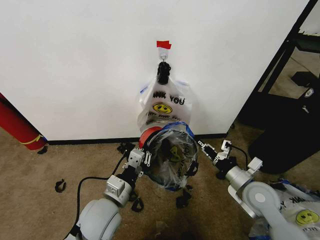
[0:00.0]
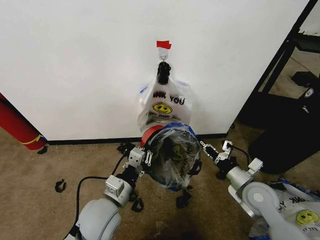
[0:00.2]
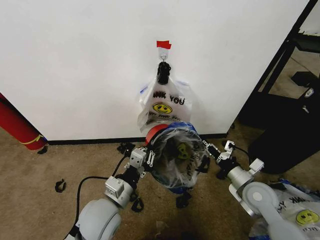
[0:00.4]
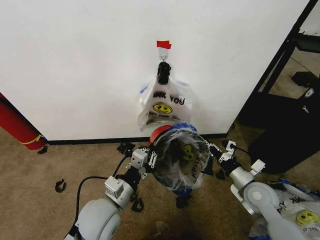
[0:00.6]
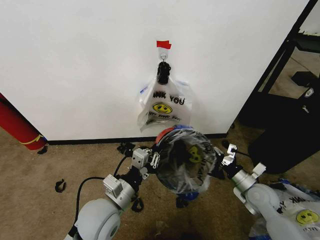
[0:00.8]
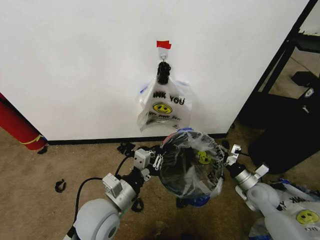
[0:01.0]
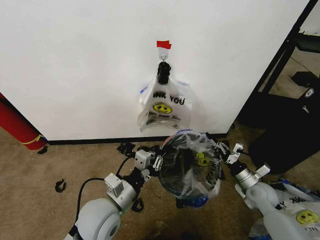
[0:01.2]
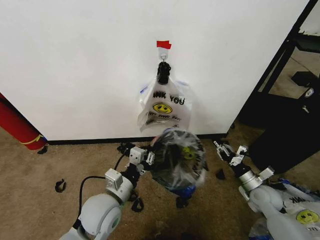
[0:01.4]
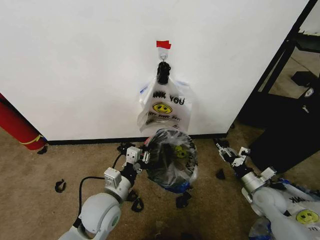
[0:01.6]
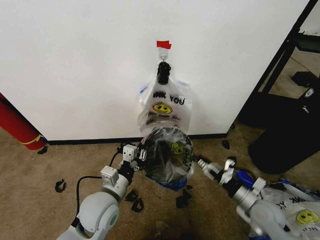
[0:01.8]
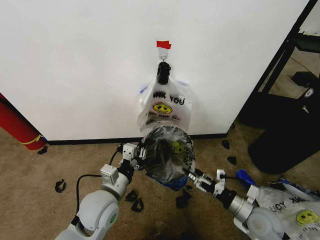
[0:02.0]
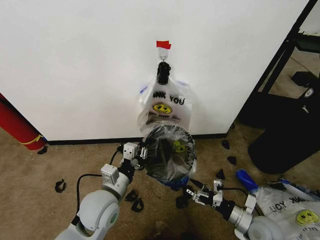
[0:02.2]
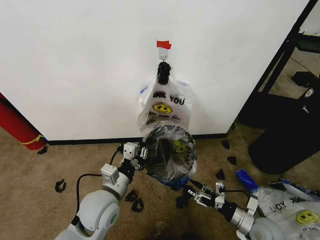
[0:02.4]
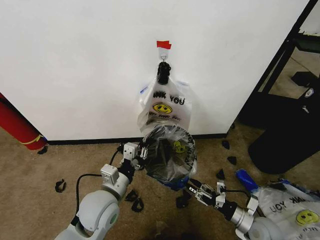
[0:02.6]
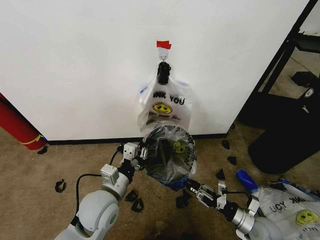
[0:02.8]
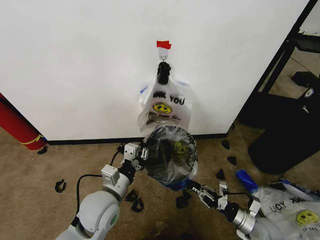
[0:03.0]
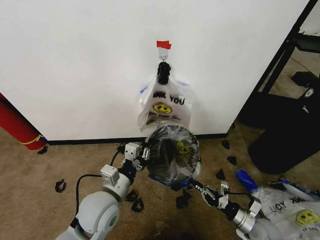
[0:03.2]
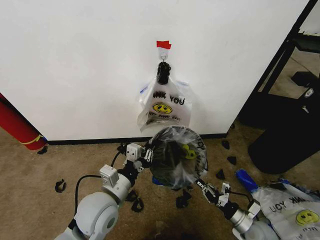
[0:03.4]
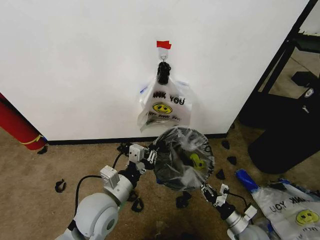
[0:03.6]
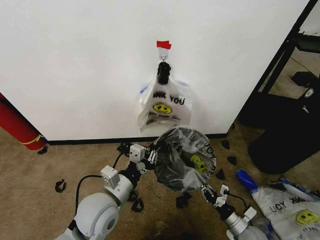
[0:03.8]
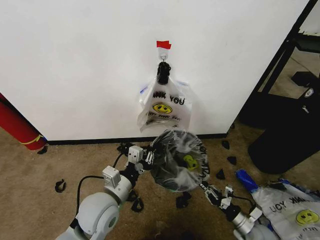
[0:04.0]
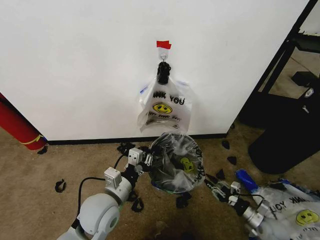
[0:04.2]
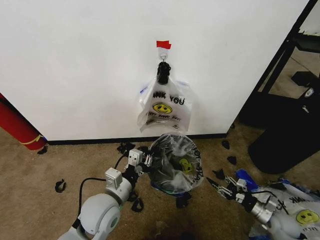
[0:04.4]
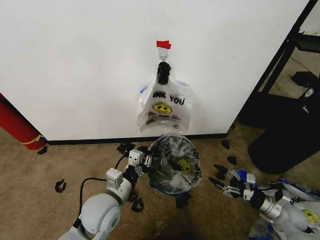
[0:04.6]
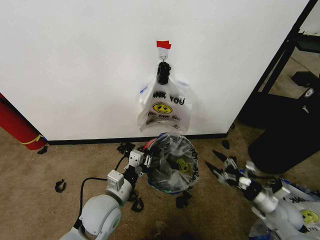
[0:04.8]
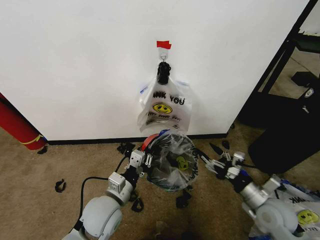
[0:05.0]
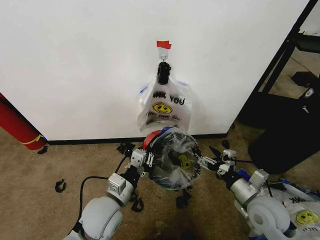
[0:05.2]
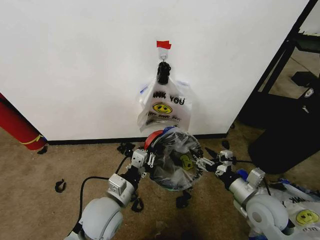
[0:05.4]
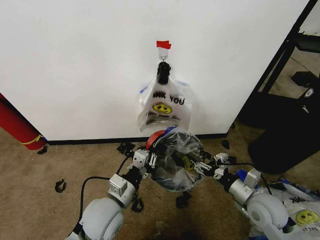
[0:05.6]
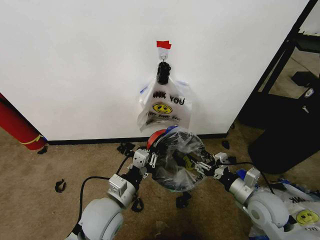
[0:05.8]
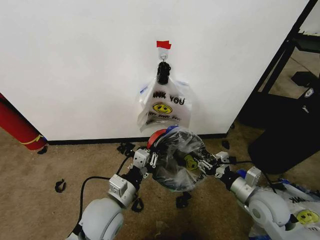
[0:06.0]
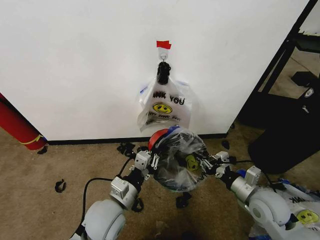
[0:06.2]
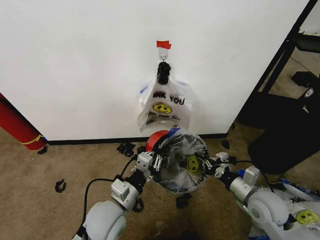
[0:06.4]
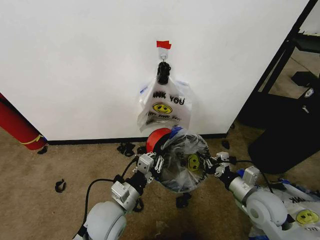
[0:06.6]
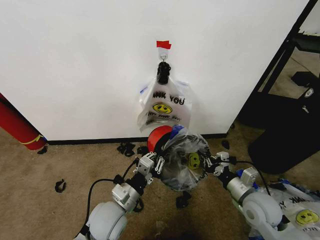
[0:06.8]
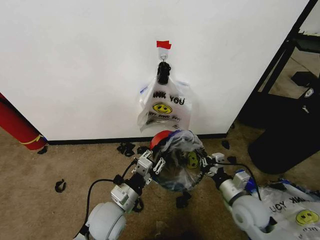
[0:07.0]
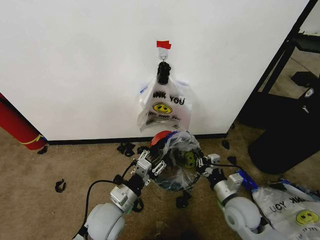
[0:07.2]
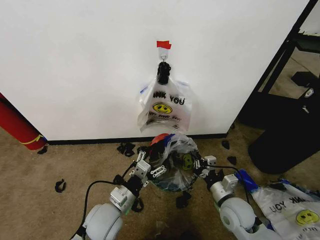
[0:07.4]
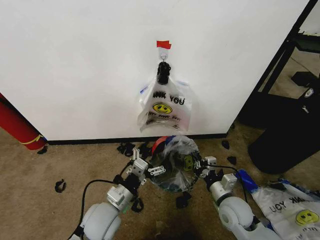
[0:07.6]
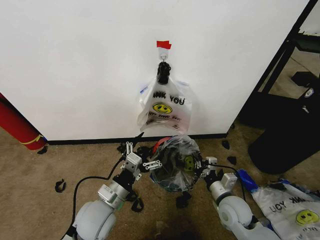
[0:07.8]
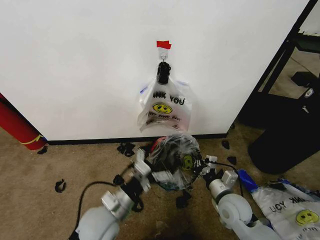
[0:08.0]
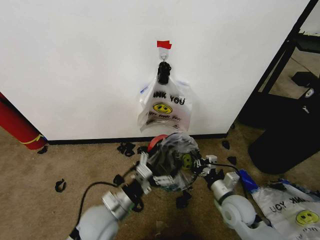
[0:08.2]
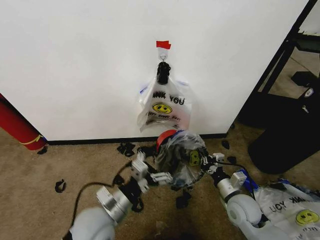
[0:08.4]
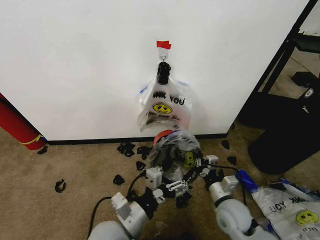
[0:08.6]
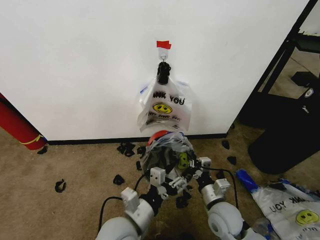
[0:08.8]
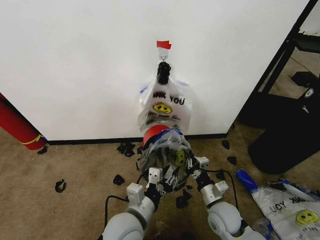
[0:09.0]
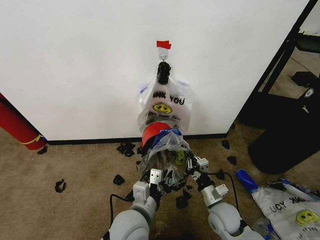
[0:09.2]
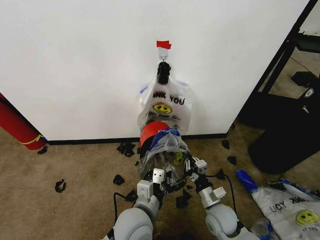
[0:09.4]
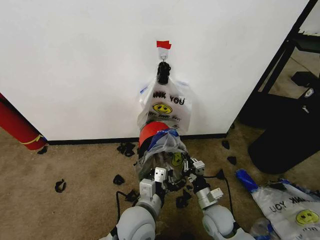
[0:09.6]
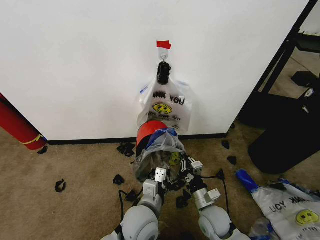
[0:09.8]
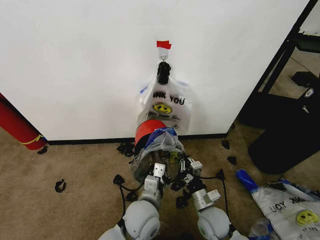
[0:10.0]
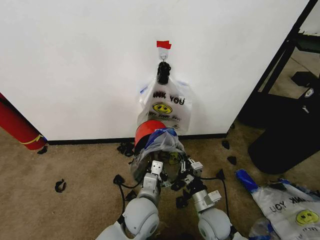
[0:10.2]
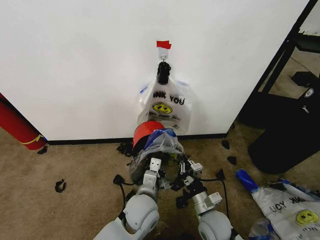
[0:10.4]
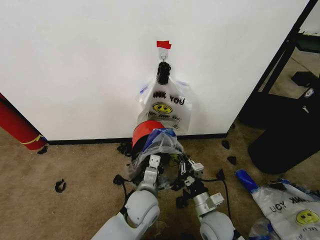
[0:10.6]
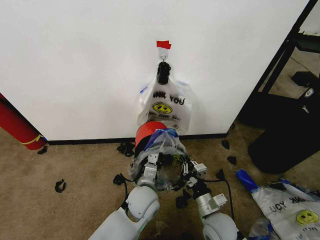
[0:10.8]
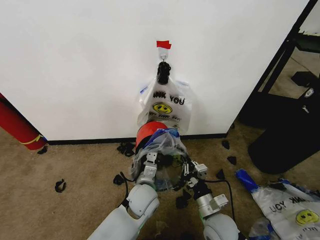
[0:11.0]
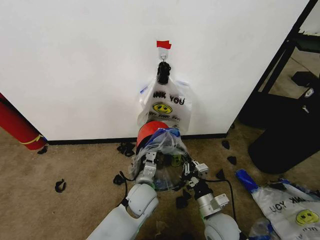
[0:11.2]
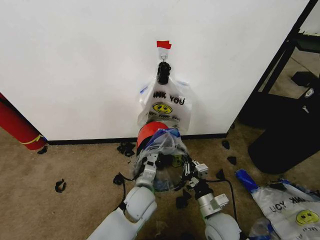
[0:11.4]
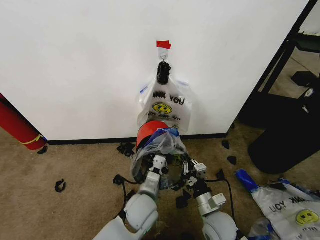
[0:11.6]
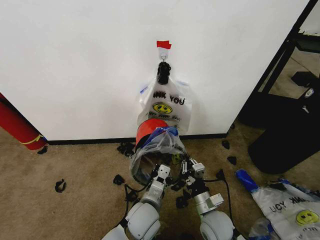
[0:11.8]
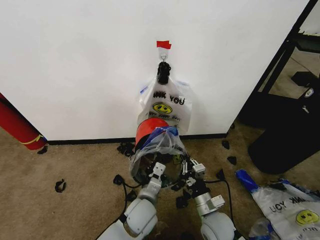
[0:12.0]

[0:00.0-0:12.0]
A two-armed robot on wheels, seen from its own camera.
Task of the whole recording: Pick up the garbage bag from the wall and place it over the trash bin.
0:00.0 to 0:01.6: The right gripper travels downward and to the right by some 15 cm, and opens.
0:01.6 to 0:03.0: The right gripper travels backward and downward by approximately 10 cm, and opens, then closes again.
0:03.0 to 0:04.4: The right gripper shifts some 10 cm to the right, and opens up.
0:04.4 to 0:06.0: The right gripper heads upward and to the left, covering approximately 20 cm, and opens and closes again.
0:06.0 to 0:07.6: The left gripper moves downward, roughly 5 cm, and opens up. The right gripper heads to the left and downward, covering some 10 cm, and closes.
0:07.6 to 0:09.0: The left gripper moves to the right, some 5 cm, and closes its fingers.
0:09.0 to 0:10.4: The left gripper travels forward by about 5 cm, and closes.
0:10.4 to 0:12.0: The grippers make only small movements.

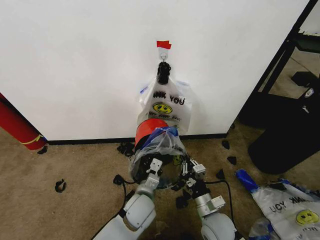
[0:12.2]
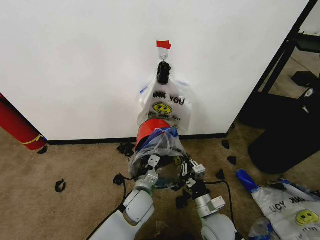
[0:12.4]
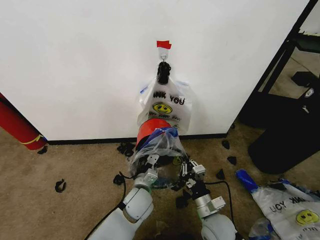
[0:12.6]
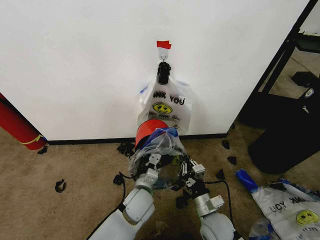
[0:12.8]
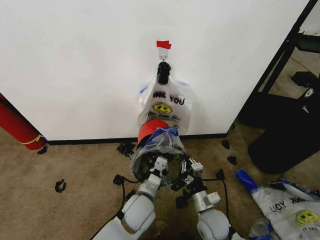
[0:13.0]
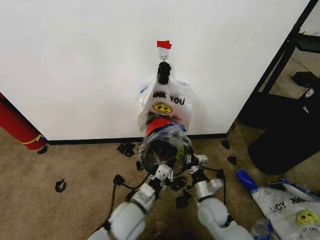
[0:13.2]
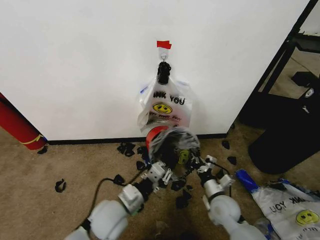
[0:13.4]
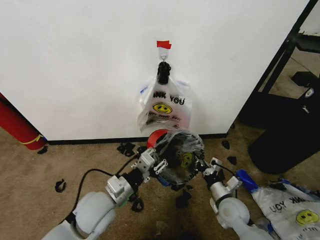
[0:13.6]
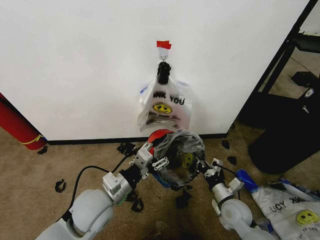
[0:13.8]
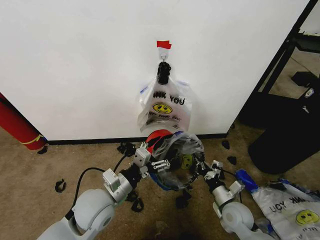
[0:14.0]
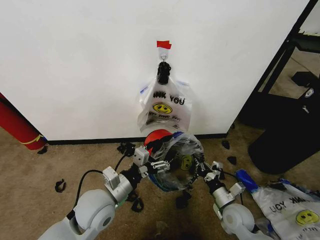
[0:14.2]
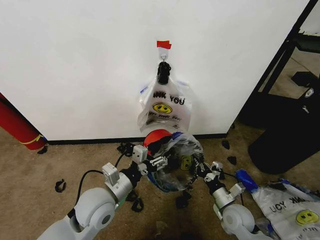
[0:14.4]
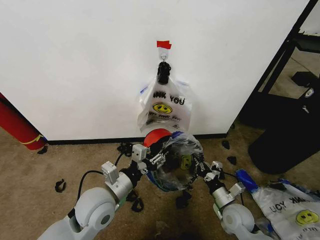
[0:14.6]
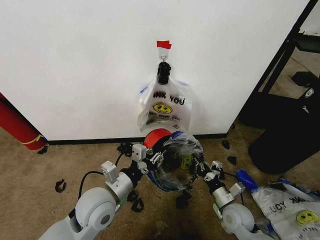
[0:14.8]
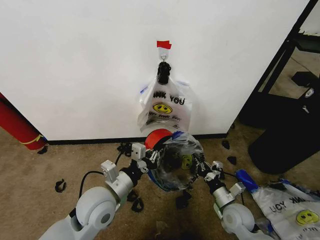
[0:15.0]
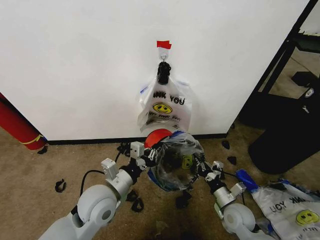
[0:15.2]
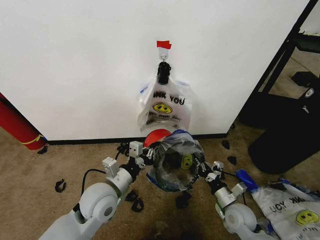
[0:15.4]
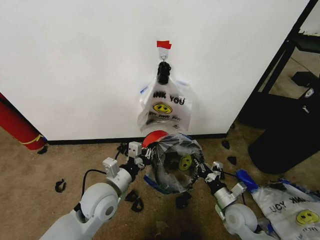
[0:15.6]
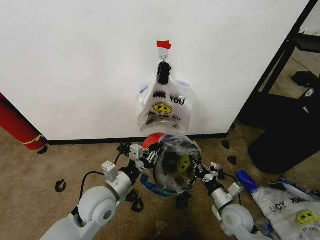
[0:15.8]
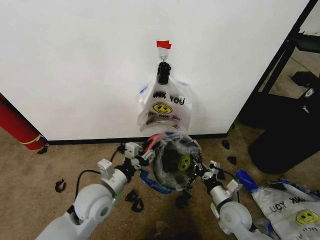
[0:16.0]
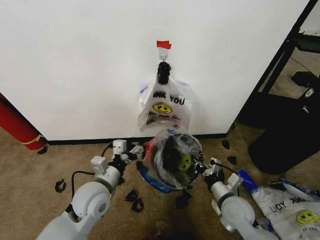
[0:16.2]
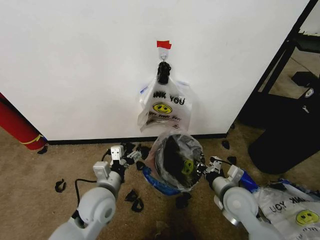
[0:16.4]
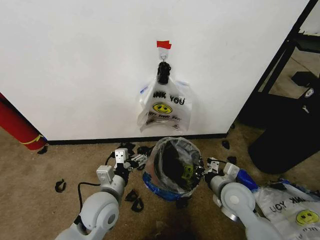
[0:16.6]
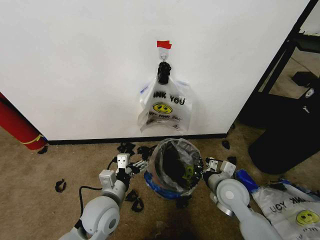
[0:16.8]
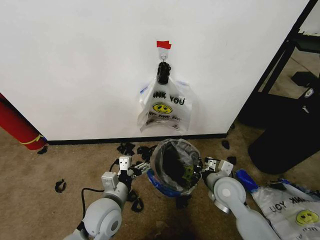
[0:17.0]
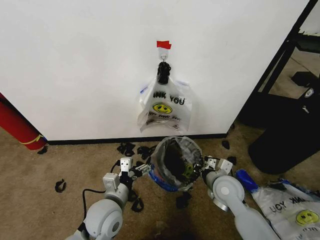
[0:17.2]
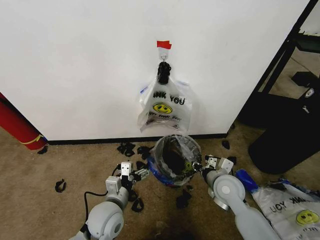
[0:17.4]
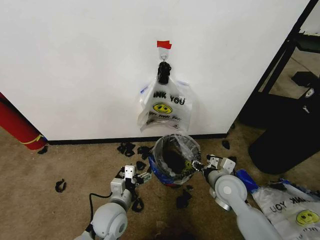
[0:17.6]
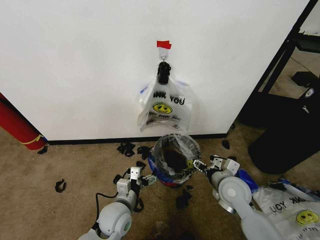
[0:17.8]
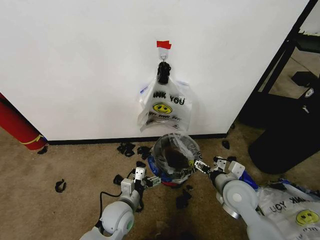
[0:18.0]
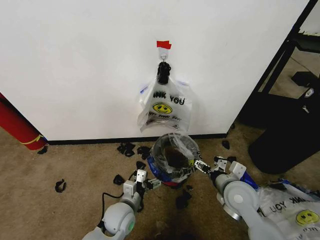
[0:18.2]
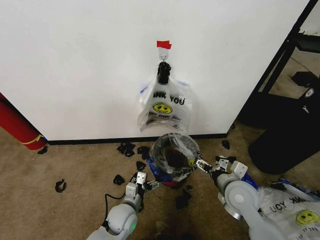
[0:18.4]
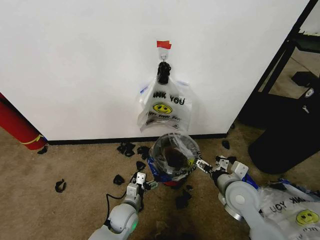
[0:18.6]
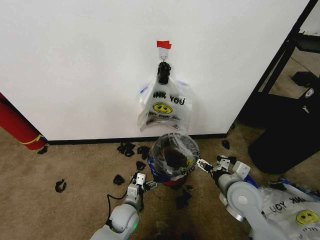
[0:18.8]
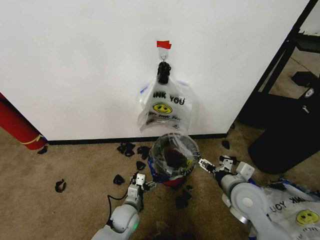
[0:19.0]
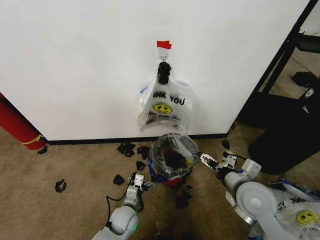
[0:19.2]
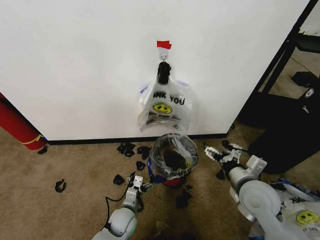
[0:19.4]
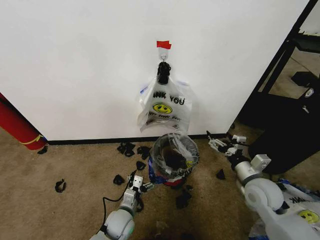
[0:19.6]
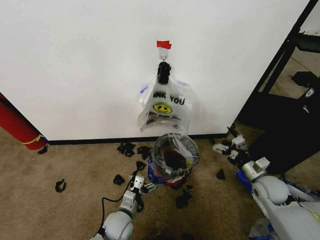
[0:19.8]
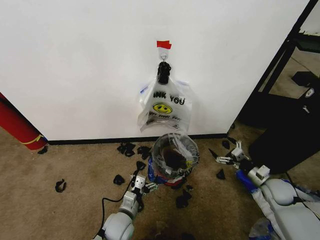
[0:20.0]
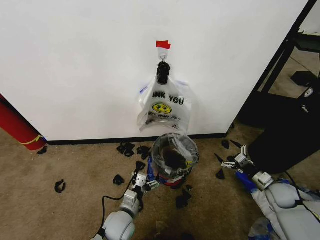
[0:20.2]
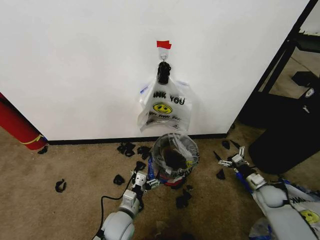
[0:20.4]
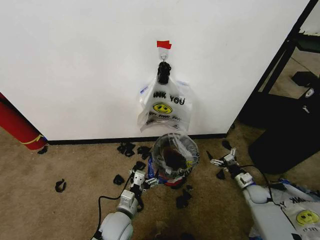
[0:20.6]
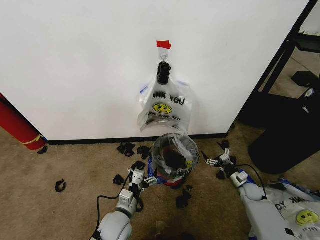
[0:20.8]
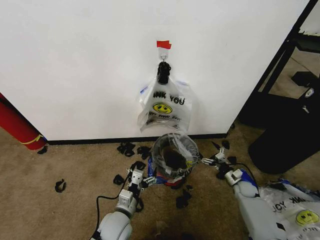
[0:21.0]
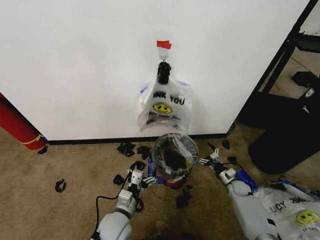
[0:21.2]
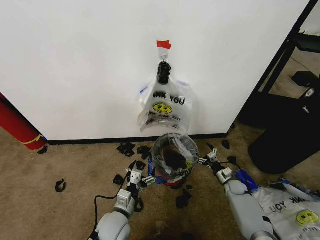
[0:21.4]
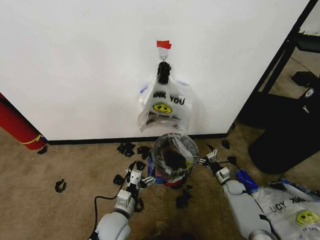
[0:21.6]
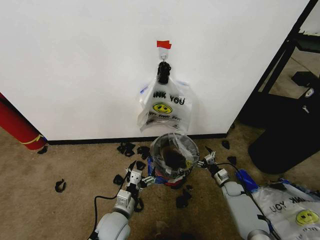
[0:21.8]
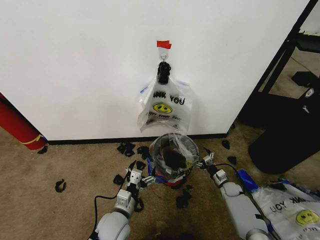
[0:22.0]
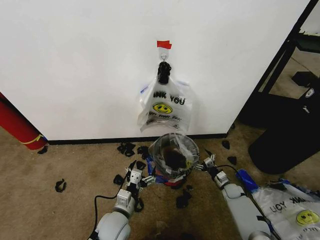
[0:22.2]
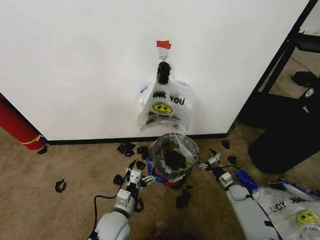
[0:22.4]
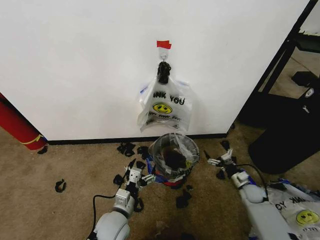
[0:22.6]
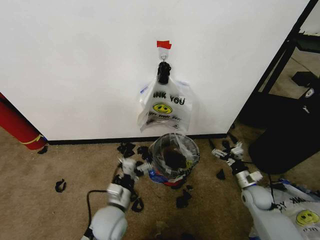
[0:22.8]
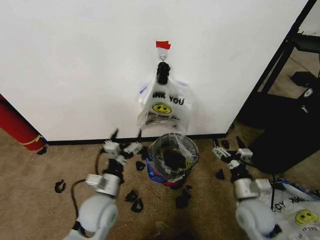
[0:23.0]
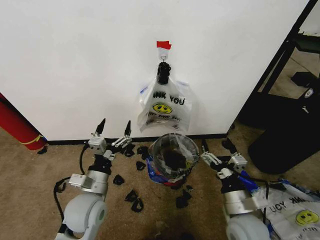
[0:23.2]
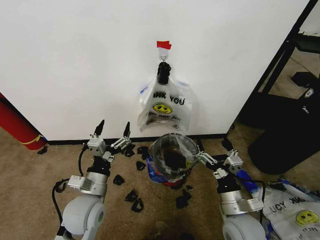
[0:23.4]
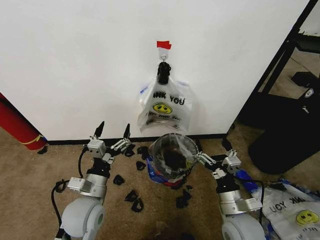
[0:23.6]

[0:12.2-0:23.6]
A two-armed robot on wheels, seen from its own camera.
Task of the whole recording: Pick up the garbage bag from the wall and place it over the trash bin.
0:12.2 to 0:13.6: The right gripper goes some 10 cm to the right and forward. The left gripper heads to the left and upward, covering some 15 cm, and opens its fingers.
0:13.6 to 0:15.0: The left gripper opens, then closes again.
0:15.0 to 0:16.4: The right gripper goes about 10 cm upward. The left gripper opens its fingers.
0:16.4 to 0:17.8: The left gripper moves downward, some 10 cm, while the right gripper opens its fingers.
0:17.8 to 0:19.4: The right gripper moves upward, about 5 cm. The left gripper shifts some 10 cm downward.
0:19.4 to 0:20.8: The left gripper heads upward, covering about 10 cm; the right gripper shifts roughly 35 cm downward, to the right and forward.
0:20.8 to 0:22.2: The right gripper moves to the left, approximately 5 cm.
0:22.2 to 0:23.6: The right gripper travels upward, backward and to the left by about 35 cm; the left gripper is displaced upward and to the left by approximately 15 cm.
